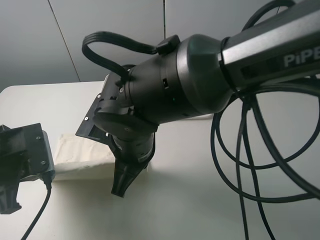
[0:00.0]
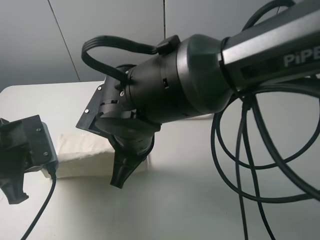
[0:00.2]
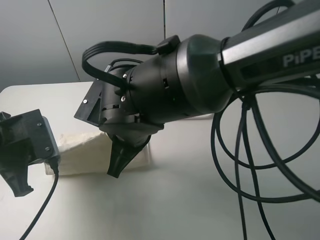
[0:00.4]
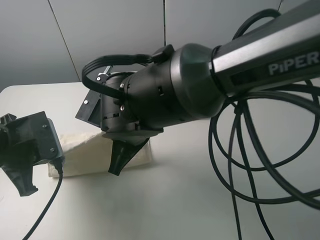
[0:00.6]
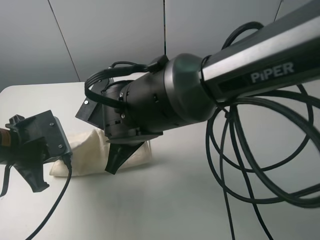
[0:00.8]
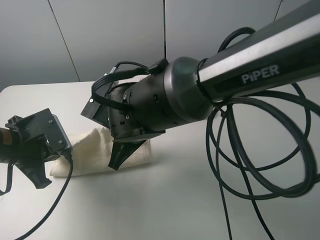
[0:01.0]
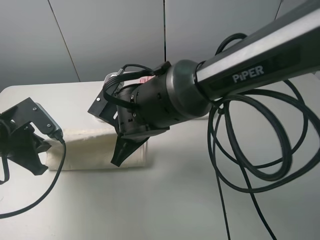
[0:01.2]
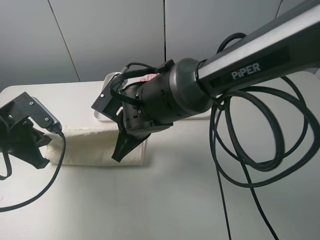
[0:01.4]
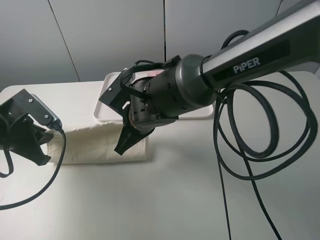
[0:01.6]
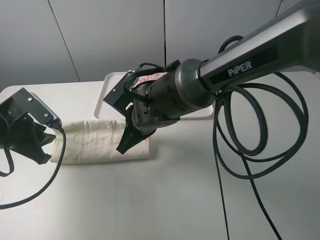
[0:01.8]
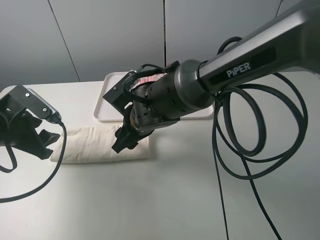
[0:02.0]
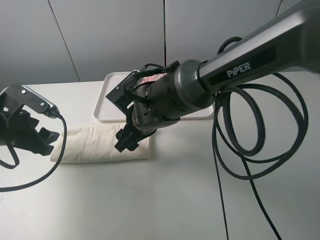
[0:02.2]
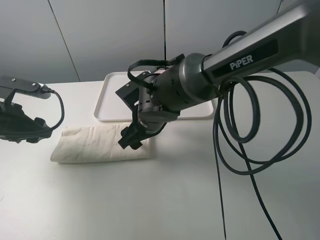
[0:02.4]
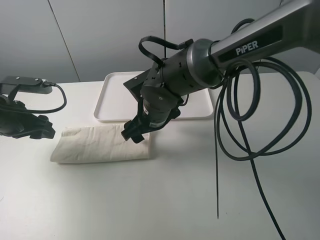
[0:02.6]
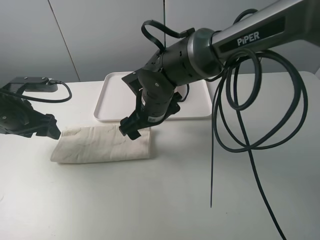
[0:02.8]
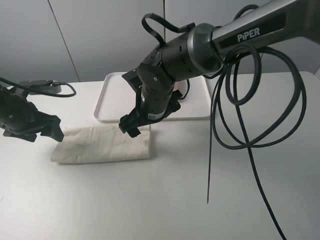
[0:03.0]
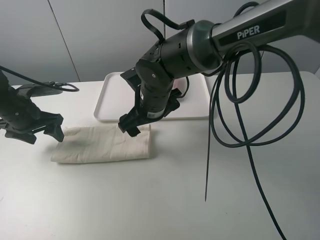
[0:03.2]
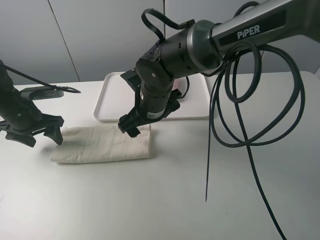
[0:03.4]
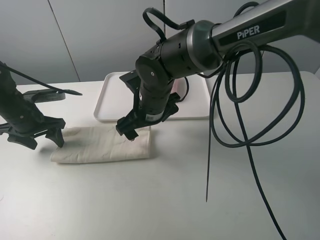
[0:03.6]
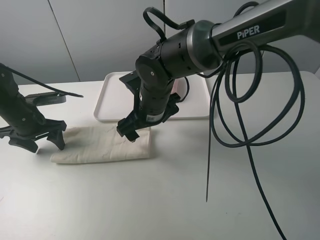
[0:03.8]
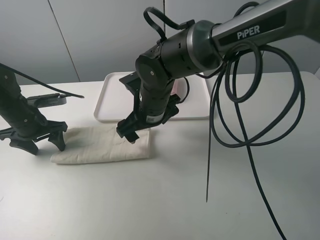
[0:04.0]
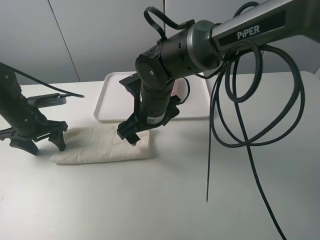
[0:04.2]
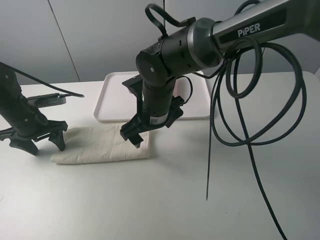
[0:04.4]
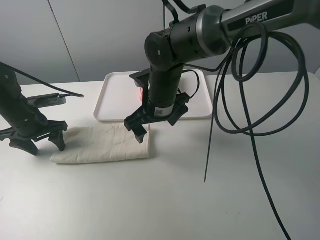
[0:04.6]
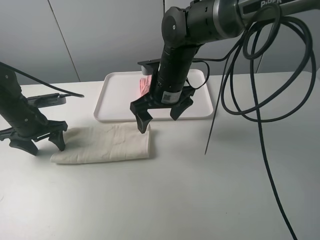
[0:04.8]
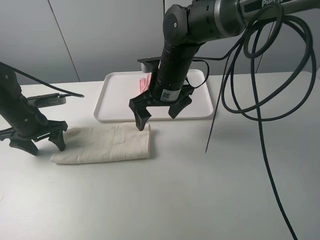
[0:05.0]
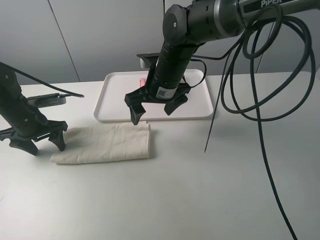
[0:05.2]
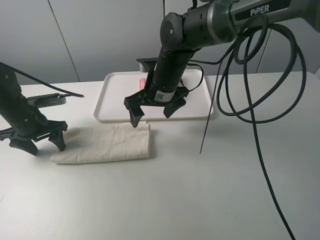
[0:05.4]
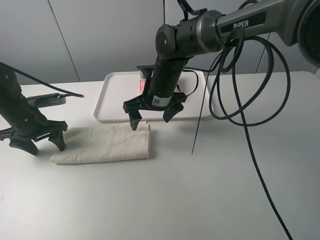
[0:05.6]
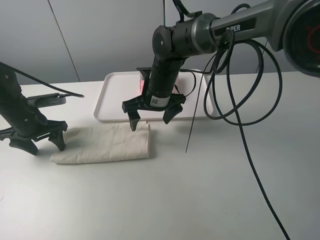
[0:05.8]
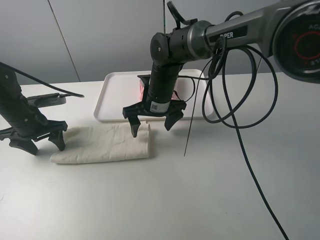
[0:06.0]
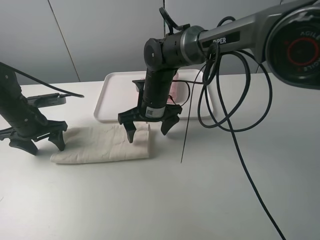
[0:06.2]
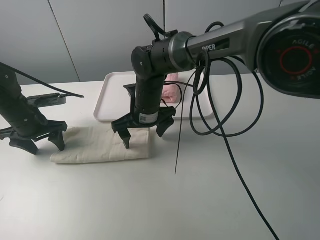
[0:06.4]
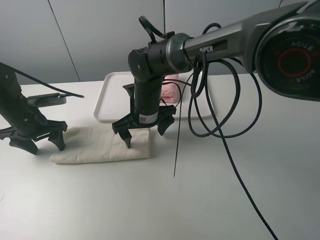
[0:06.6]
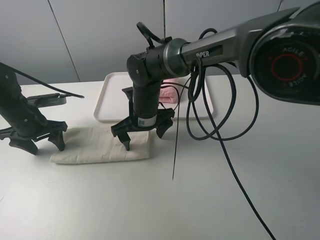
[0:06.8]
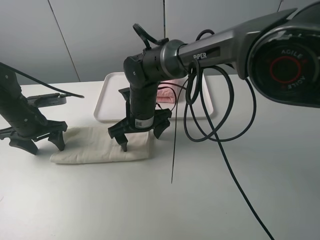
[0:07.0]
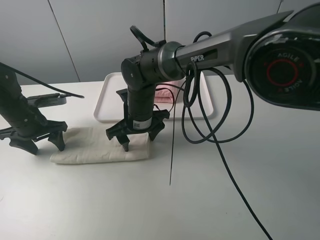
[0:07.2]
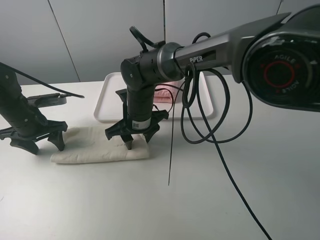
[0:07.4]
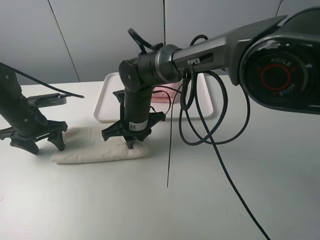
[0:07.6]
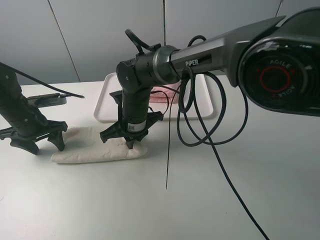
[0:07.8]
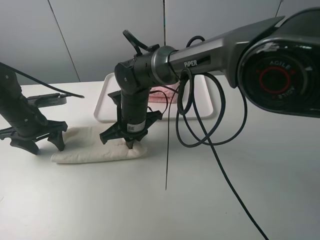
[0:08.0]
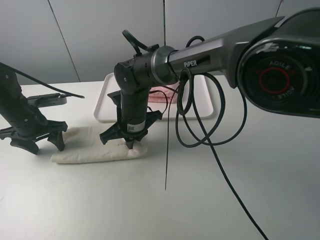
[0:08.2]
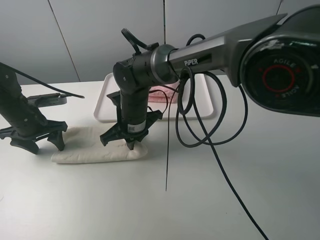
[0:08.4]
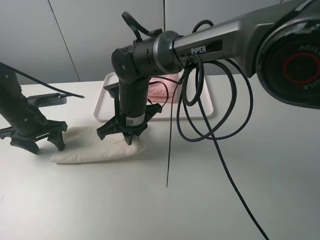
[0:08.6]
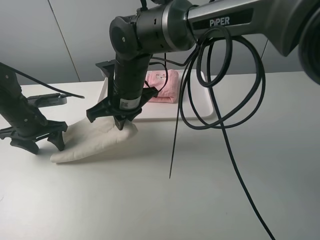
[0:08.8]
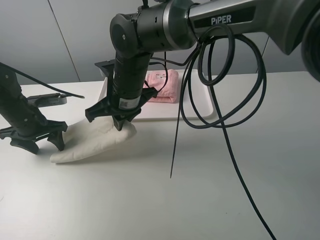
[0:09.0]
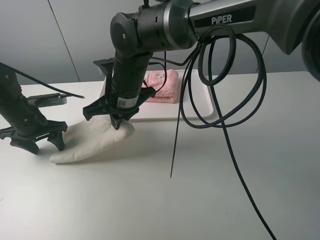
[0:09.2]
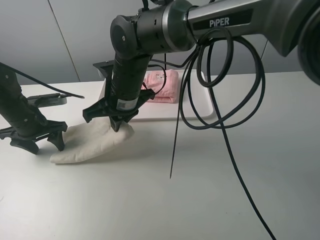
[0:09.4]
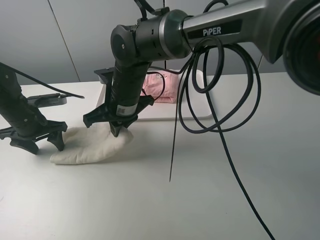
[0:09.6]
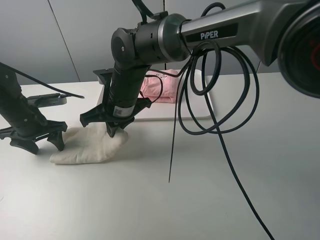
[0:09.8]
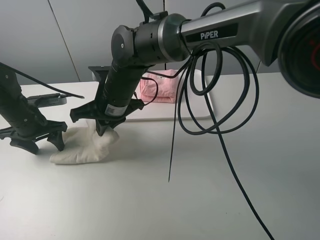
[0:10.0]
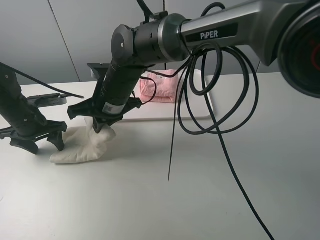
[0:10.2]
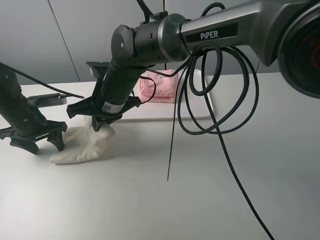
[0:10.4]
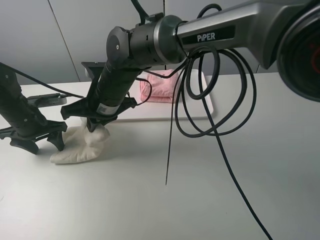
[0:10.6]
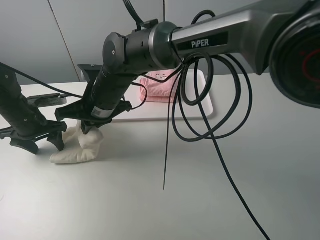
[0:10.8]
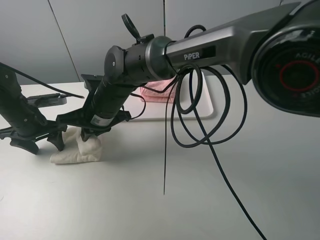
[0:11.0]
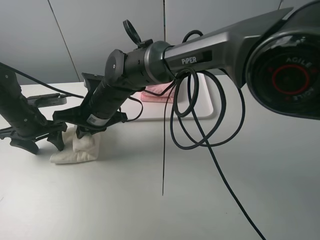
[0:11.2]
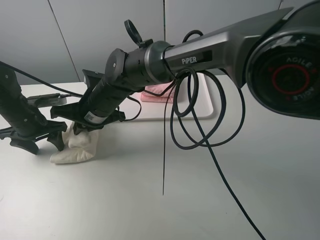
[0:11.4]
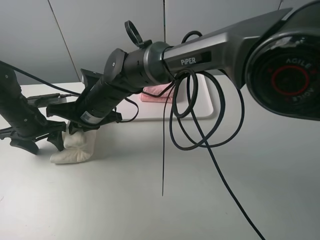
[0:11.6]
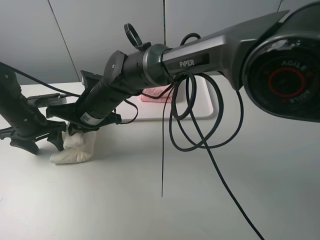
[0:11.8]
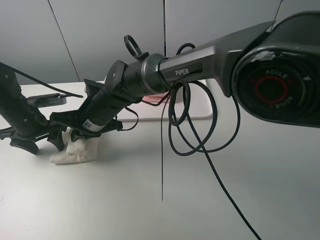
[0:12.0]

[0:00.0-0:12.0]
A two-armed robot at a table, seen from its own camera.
Task of the whole recording: fold one of the towels by two grippers and place it on the tray,then fold another towel by two grippers and place it on the folded towel.
Step, 0:00.0 to 0:02.0: Fold the white towel upwards with the left gripper.
Step, 0:02.2 to 0:04.0: Press the white towel with the left gripper.
Step, 0:04.2 to 0:07.6: Grasp the white towel with the right gripper.
0:00.0 to 0:01.6: The right gripper is displaced forward by approximately 10 cm, while the left gripper goes about 5 cm forward.
0:01.6 to 0:03.0: The left gripper heads forward, covering roughly 10 cm, and opens. Meanwhile the right gripper opens.
0:03.0 to 0:04.4: The grippers stay close to where they were, moving slightly.
0:04.4 to 0:06.0: The right gripper is displaced forward by roughly 5 cm.
0:06.0 to 0:07.6: The right gripper shifts some 5 cm to the left, and closes its fingers.
0:07.6 to 0:09.0: The right gripper moves upward, approximately 10 cm.
0:10.4 to 0:12.0: The right gripper changes place by about 5 cm.

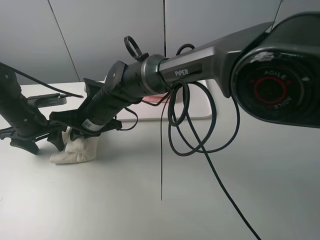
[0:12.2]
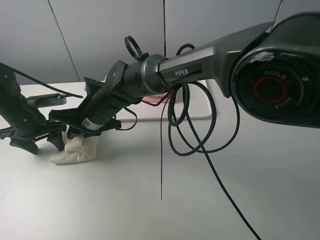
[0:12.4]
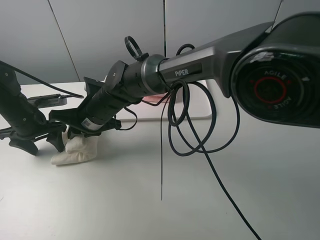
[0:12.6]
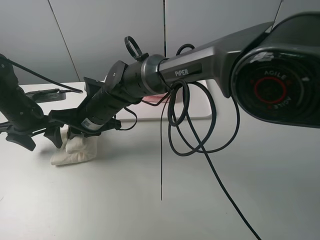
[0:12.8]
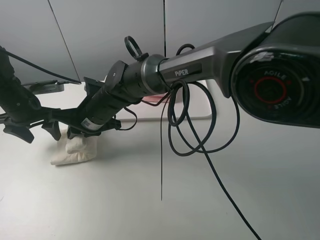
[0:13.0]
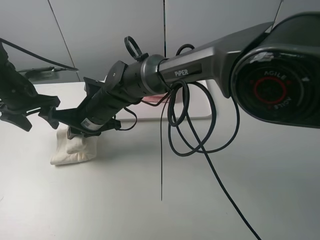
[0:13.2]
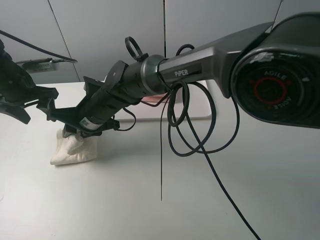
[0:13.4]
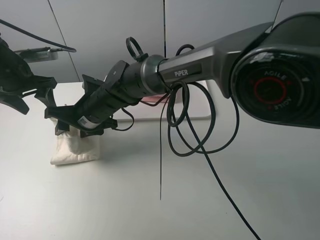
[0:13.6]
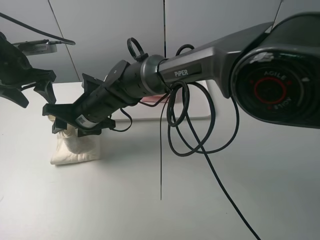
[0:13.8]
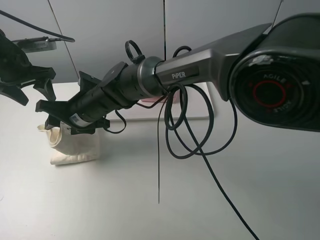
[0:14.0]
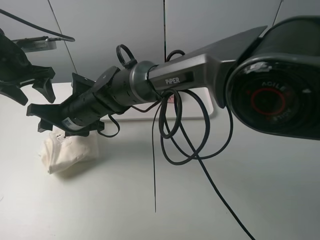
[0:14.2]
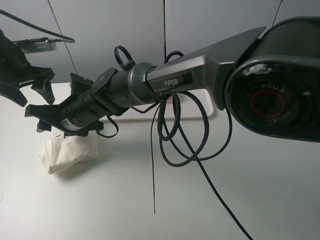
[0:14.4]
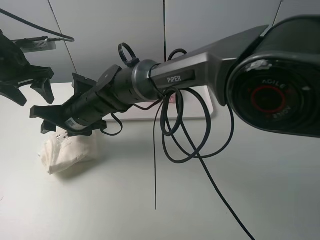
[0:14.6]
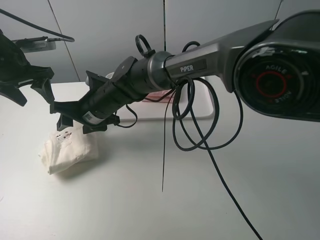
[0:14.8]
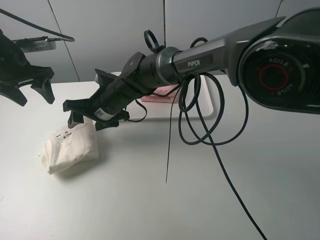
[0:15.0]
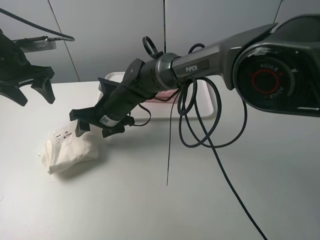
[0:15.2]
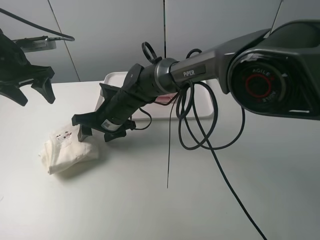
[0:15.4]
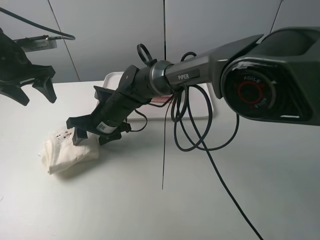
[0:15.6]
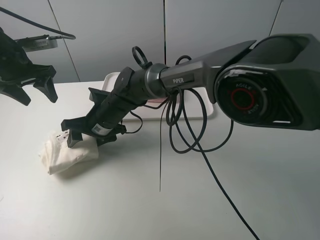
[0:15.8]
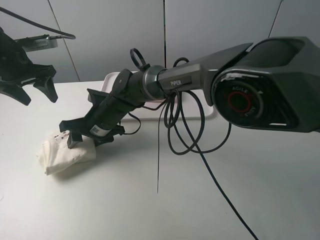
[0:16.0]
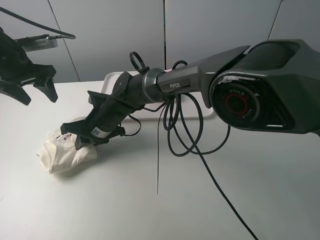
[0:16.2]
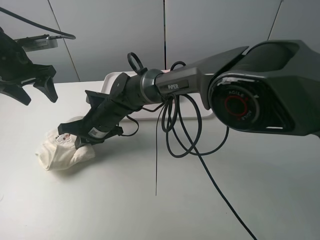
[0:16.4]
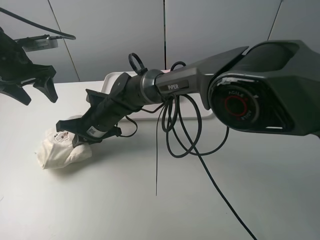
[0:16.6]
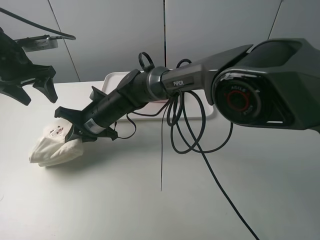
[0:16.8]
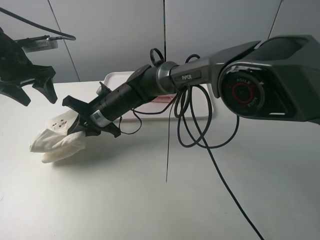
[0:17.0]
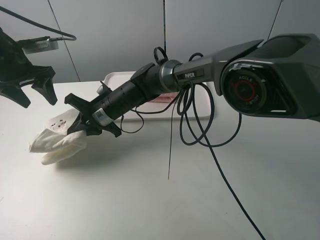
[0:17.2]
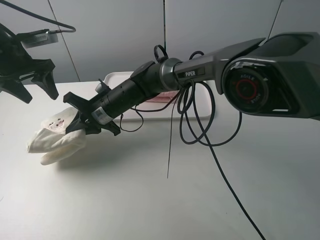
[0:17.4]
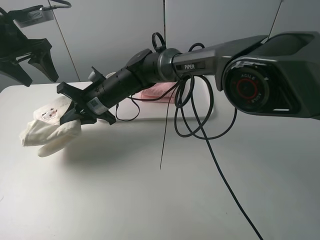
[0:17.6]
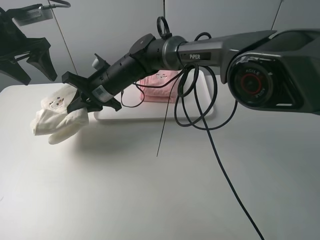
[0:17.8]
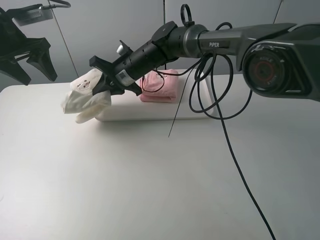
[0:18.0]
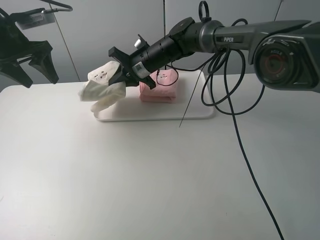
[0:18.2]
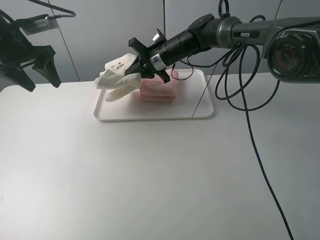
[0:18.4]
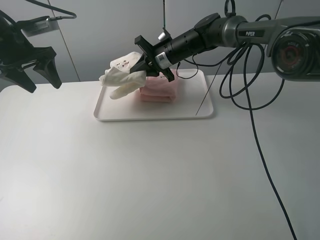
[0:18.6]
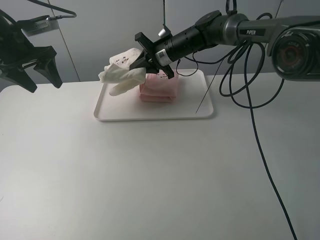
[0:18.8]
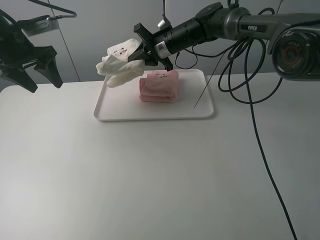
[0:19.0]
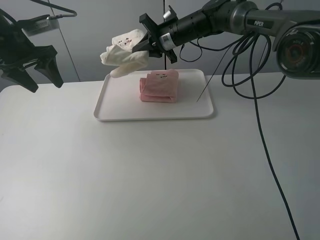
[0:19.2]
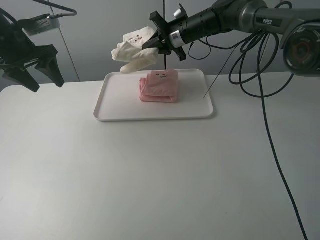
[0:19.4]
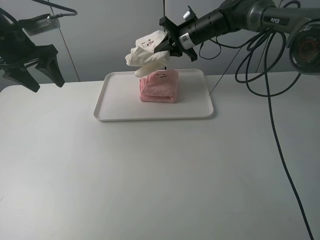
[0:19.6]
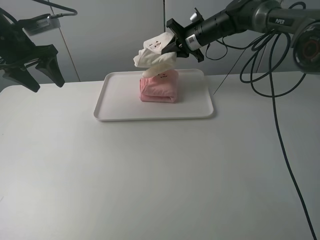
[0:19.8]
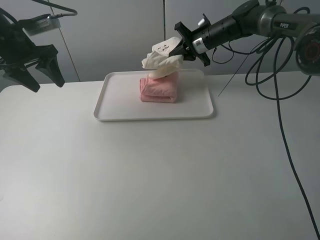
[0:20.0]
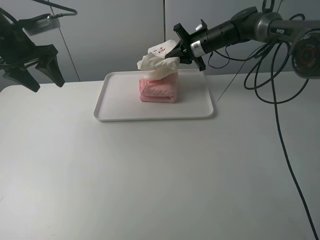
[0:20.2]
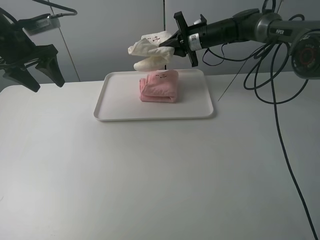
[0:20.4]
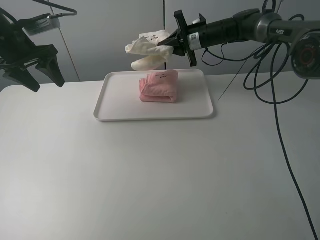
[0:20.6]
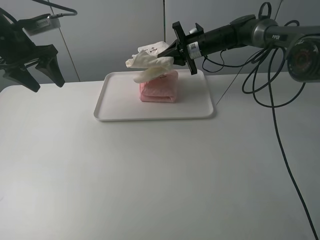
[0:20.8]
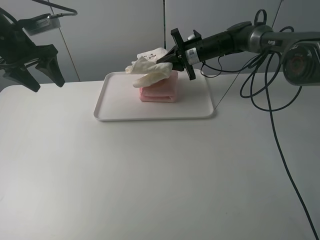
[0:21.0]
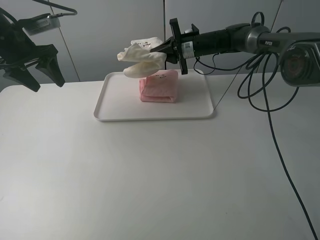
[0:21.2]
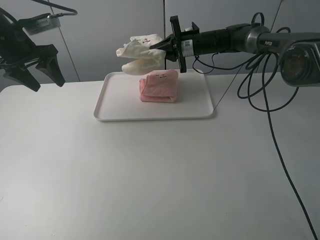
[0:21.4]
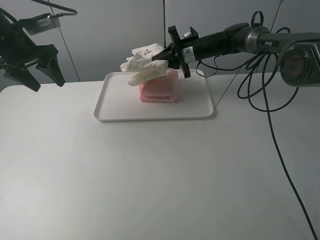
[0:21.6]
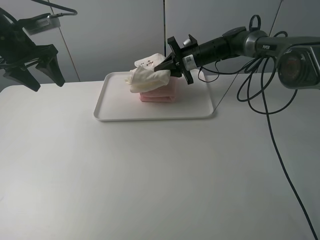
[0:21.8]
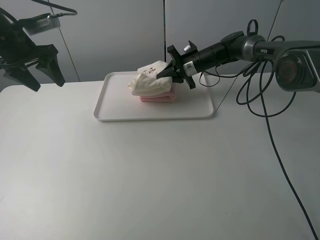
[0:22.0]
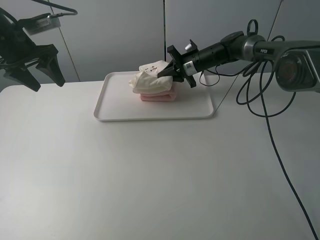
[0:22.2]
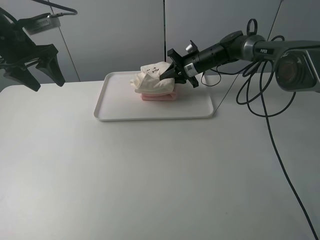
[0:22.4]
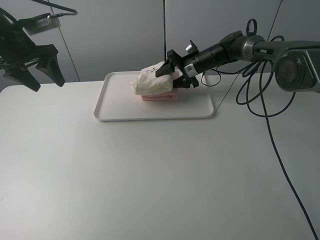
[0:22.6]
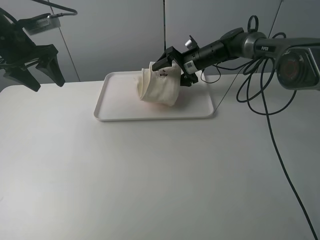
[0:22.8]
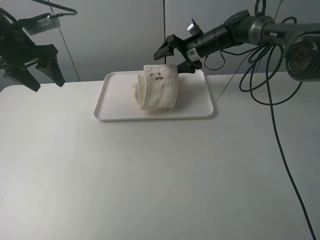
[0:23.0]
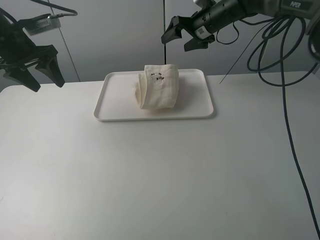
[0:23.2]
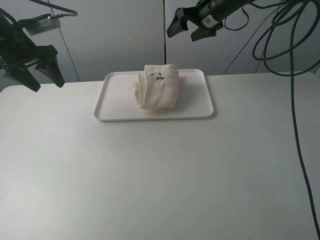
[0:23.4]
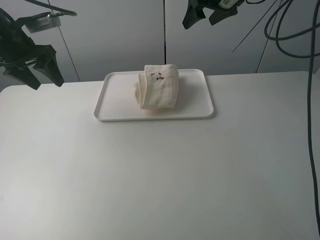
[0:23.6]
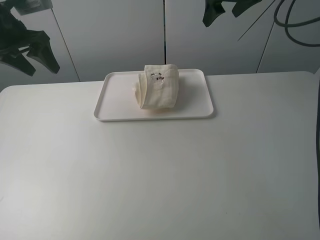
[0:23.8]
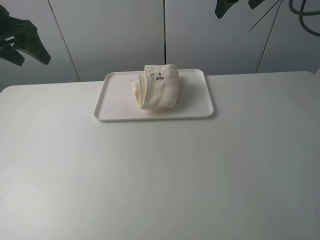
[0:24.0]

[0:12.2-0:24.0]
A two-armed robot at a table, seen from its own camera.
Task of the whole recording: fold one of the towels by two grippers and place it on the tray,then fold another towel by two grippers and place it on the folded towel.
Step, 0:12.2 to 0:14.2: Fold the white towel from right to left with right gripper.
Step, 0:14.4 to 0:16.4: Grasp the white towel with the right gripper.
Step, 0:16.6 to 0:23.0: Place the white towel on the pink towel with the right gripper.
0:12.2 to 0:13.6: The left gripper goes about 10 cm upward, while the right gripper opens its fingers.
0:15.2 to 0:16.6: The right gripper closes its fingers.
0:16.6 to 0:18.2: The right gripper travels forward, to the right and upward by about 20 cm.
0:18.2 to 0:19.6: The right gripper heads to the right and forward, covering approximately 15 cm.
0:19.6 to 0:21.0: The right gripper changes place by approximately 5 cm.
0:21.0 to 0:22.6: The right gripper opens.
0:22.6 to 0:24.0: The right gripper goes some 25 cm upward, while the left gripper is displaced upward by some 5 cm.
